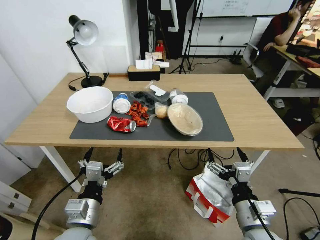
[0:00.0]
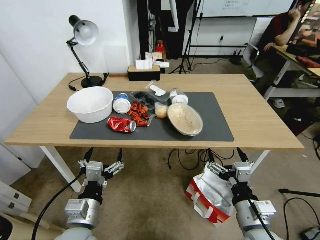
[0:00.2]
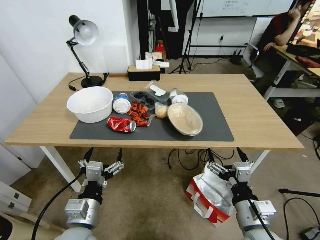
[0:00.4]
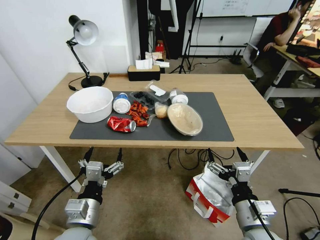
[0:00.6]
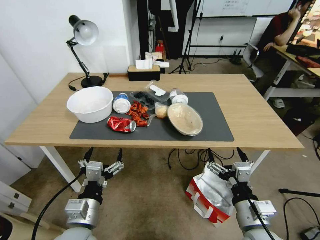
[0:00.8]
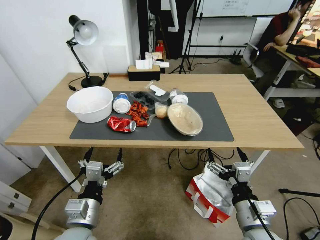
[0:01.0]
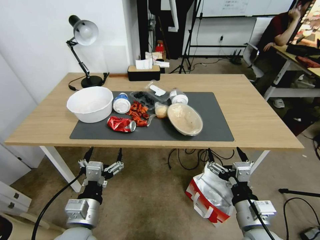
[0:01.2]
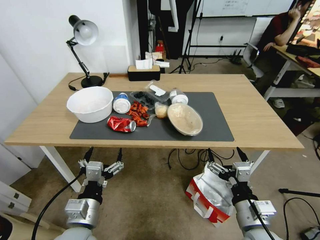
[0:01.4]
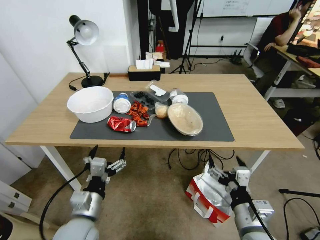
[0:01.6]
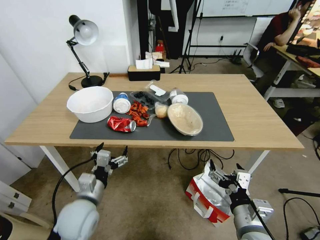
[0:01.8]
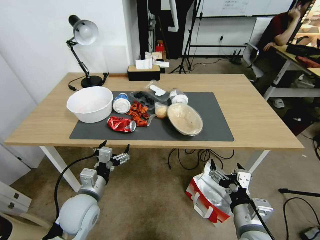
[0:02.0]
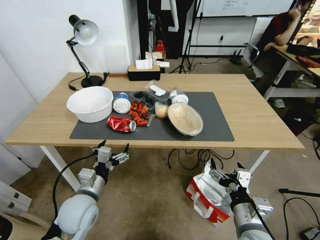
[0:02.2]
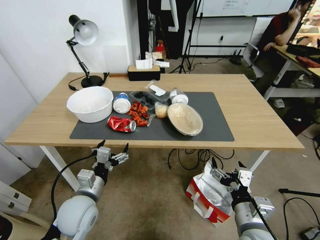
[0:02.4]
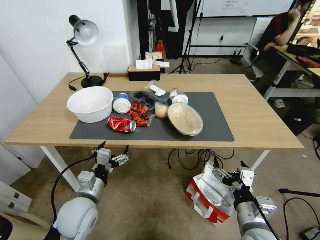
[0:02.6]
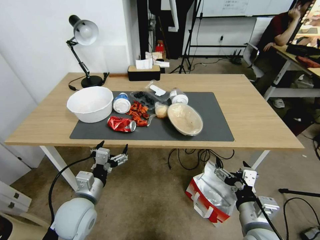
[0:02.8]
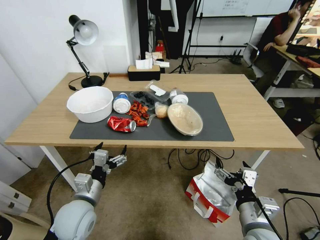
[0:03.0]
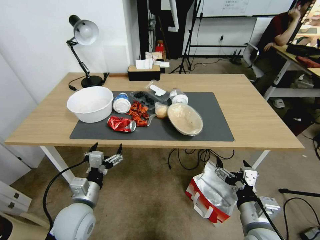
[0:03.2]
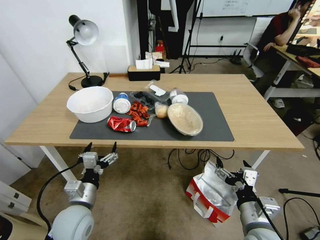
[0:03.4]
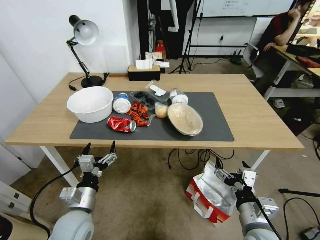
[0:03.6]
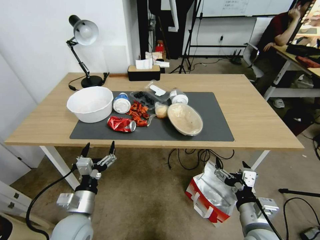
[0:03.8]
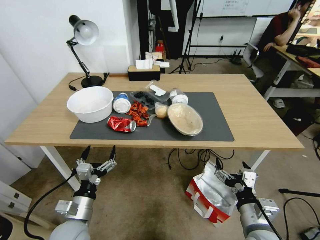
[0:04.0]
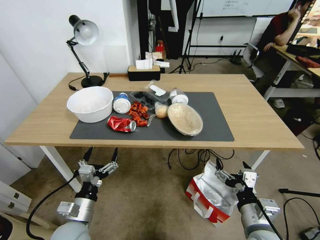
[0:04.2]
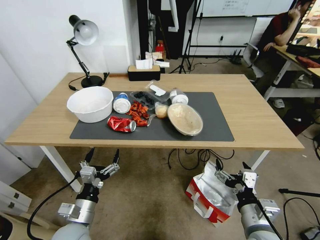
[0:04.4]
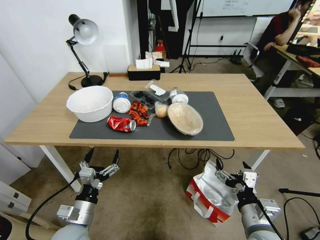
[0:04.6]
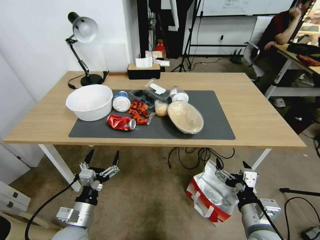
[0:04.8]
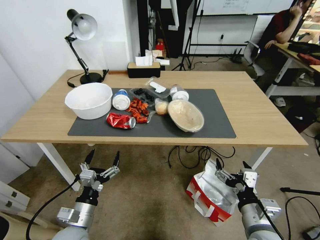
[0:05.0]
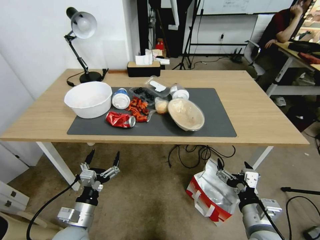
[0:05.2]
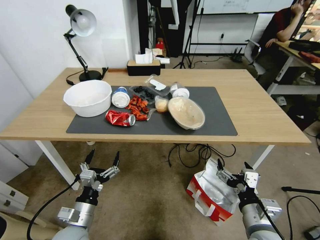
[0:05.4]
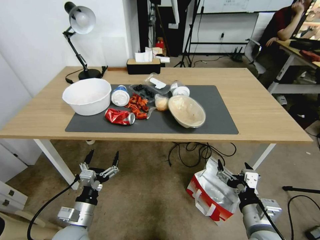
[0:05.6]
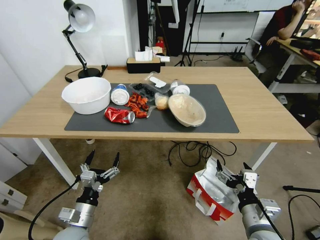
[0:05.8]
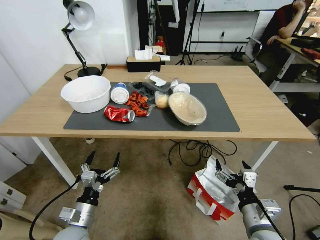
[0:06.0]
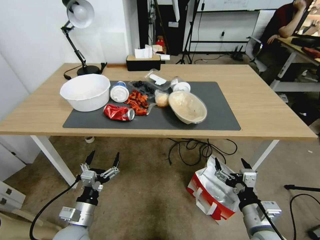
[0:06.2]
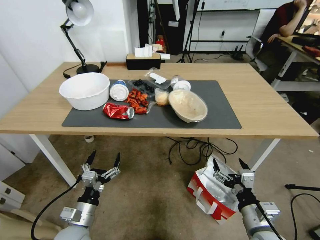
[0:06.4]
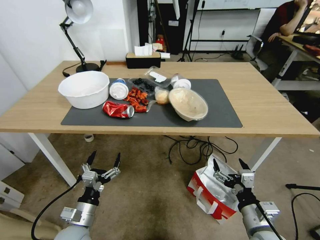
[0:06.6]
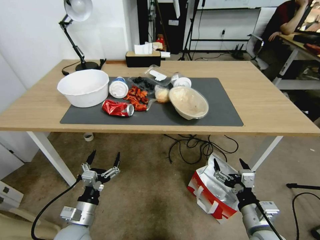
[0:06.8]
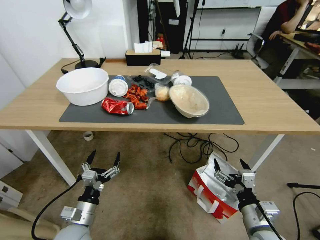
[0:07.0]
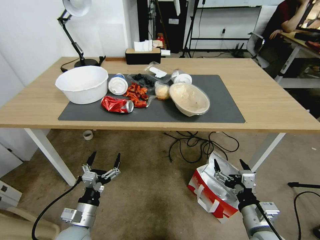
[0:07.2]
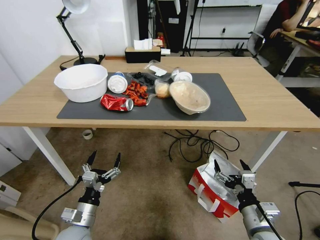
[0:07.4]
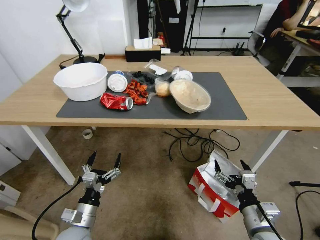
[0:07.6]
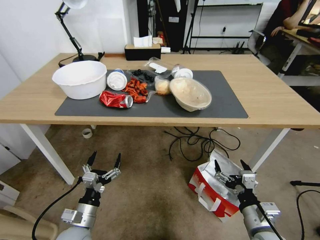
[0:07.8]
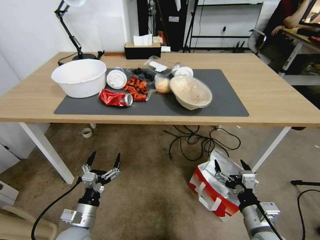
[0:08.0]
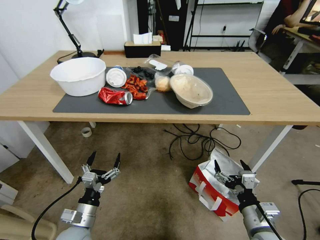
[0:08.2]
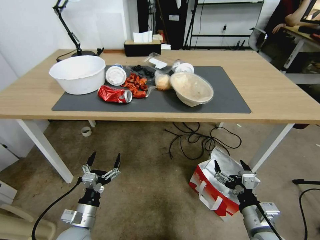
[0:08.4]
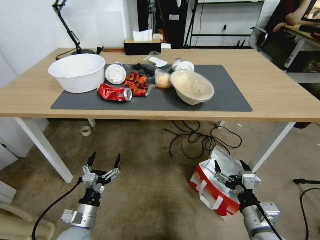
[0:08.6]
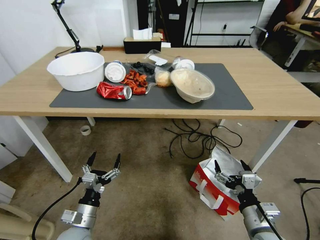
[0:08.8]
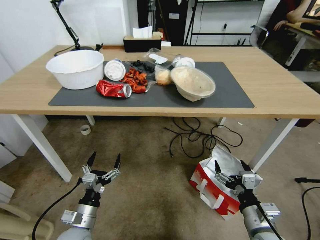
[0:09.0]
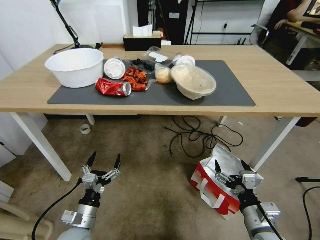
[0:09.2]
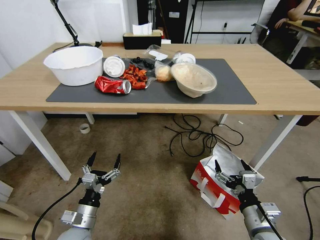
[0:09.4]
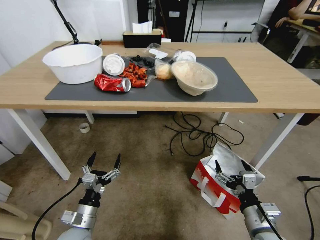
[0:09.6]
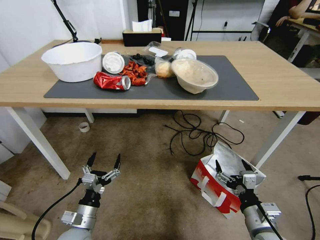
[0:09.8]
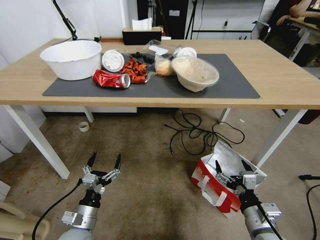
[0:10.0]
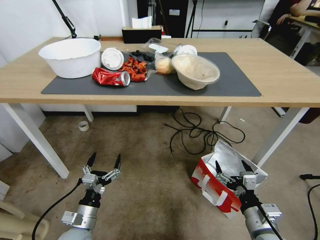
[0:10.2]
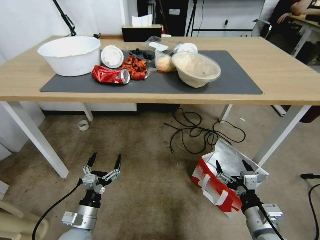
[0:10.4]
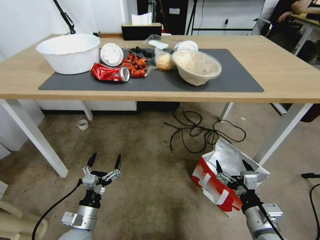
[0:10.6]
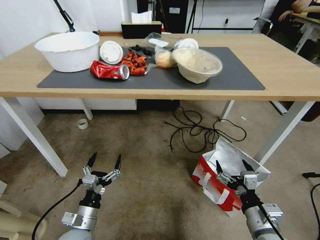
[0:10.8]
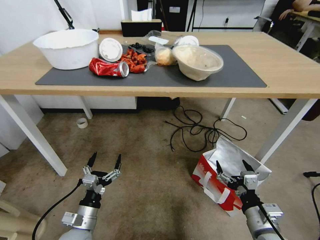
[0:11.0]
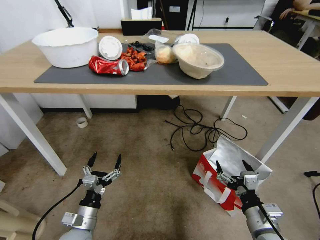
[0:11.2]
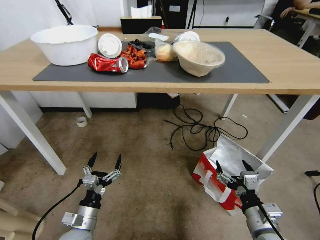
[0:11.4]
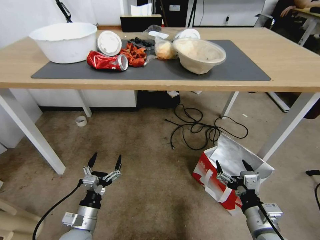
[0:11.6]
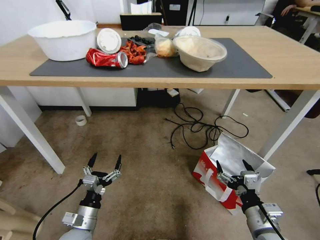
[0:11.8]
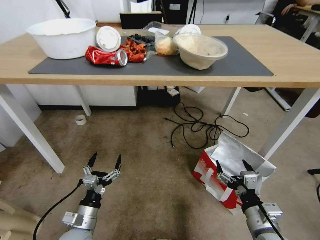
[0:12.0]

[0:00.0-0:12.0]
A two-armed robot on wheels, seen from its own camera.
Task of the whole recording: Pick up the food delivery bag from the floor and place it on the table.
0:01.6 to 0:03.0: The left gripper shifts approximately 5 cm forward.
0:03.0 to 0:04.4: The left gripper moves downward, about 5 cm.

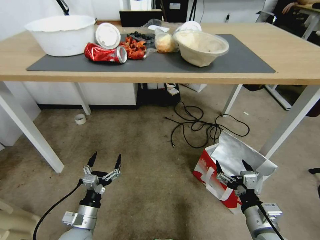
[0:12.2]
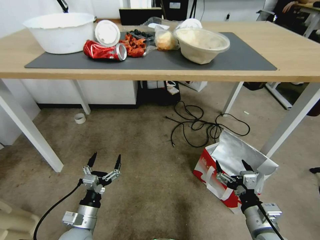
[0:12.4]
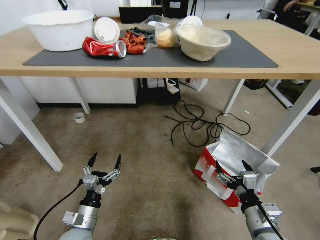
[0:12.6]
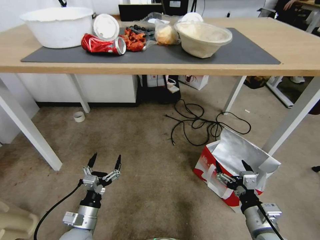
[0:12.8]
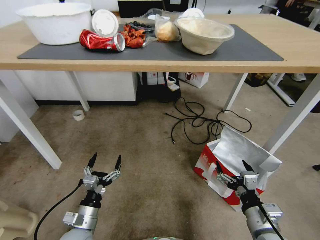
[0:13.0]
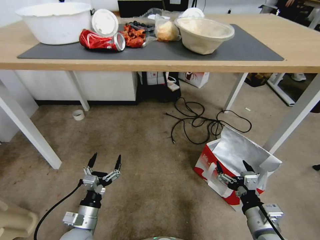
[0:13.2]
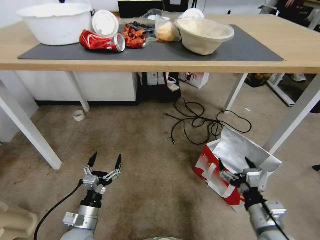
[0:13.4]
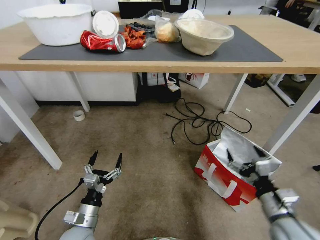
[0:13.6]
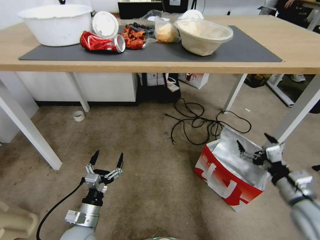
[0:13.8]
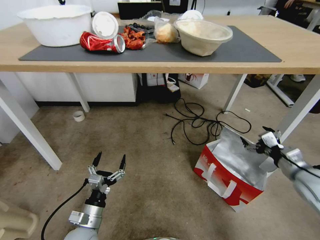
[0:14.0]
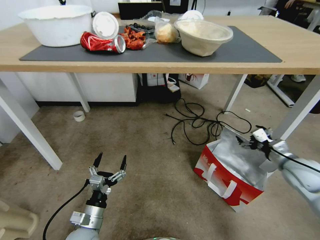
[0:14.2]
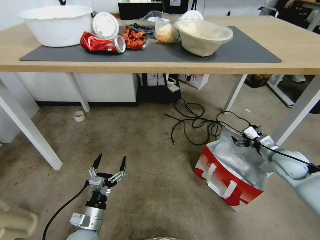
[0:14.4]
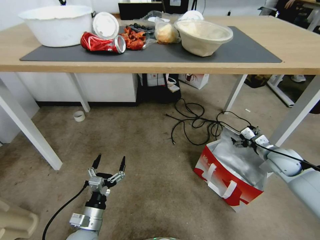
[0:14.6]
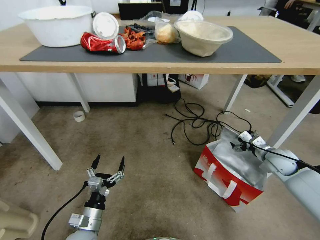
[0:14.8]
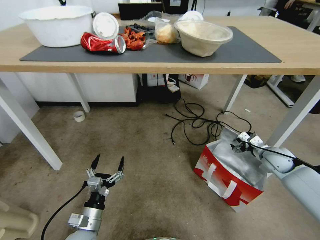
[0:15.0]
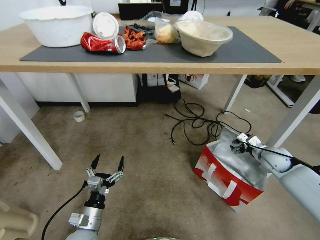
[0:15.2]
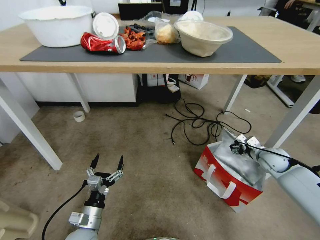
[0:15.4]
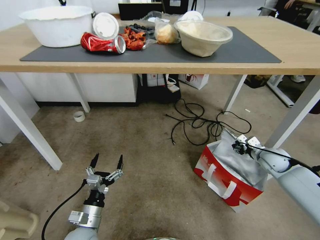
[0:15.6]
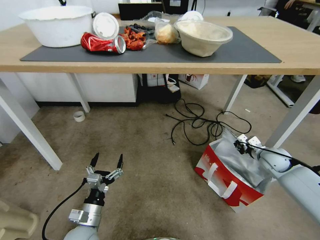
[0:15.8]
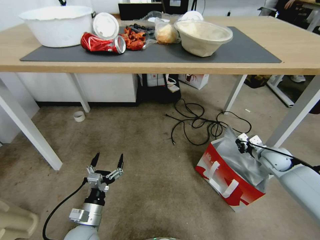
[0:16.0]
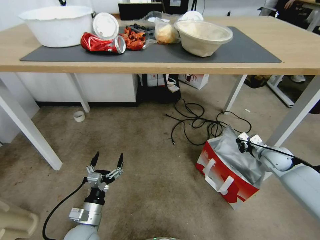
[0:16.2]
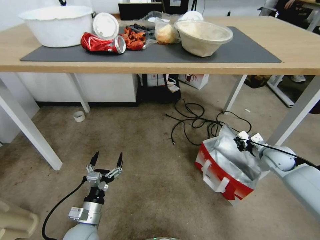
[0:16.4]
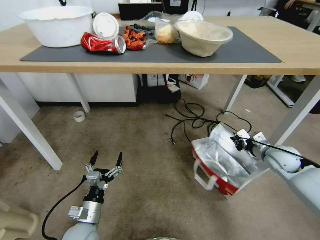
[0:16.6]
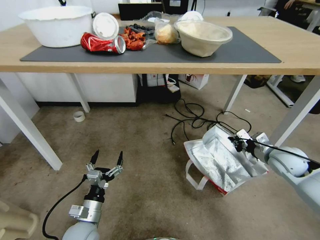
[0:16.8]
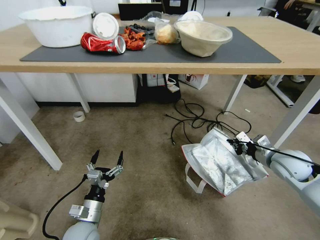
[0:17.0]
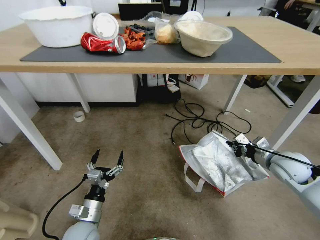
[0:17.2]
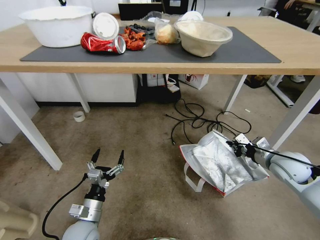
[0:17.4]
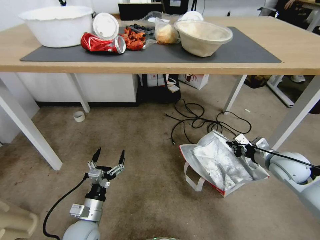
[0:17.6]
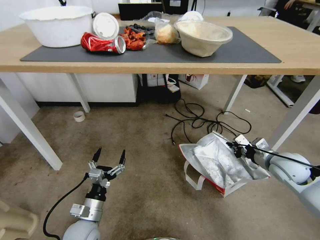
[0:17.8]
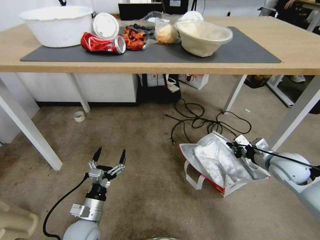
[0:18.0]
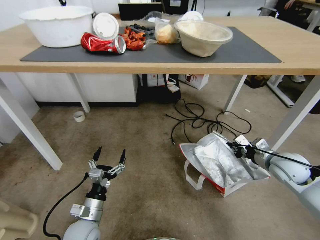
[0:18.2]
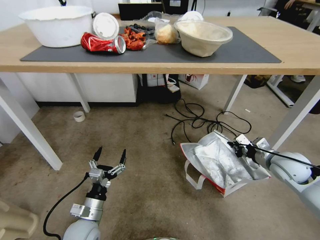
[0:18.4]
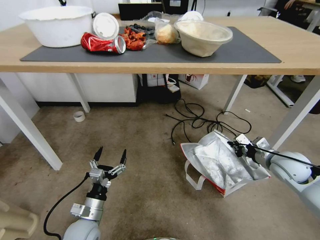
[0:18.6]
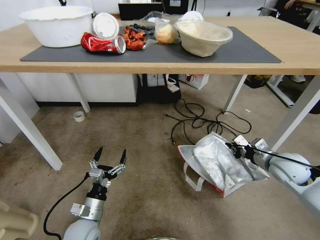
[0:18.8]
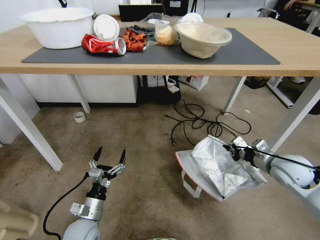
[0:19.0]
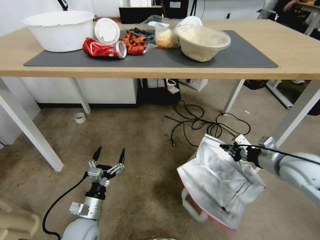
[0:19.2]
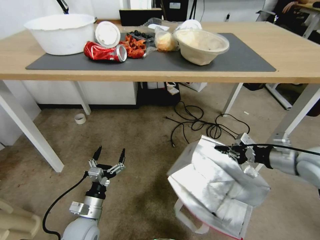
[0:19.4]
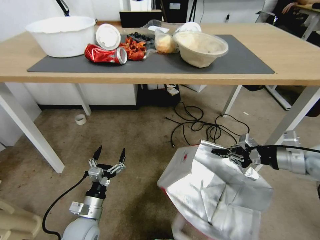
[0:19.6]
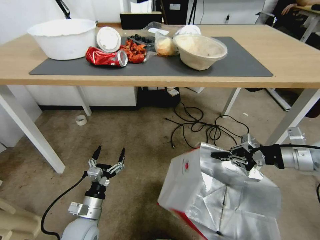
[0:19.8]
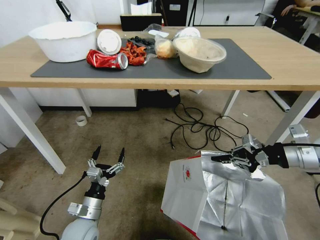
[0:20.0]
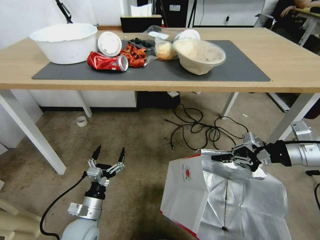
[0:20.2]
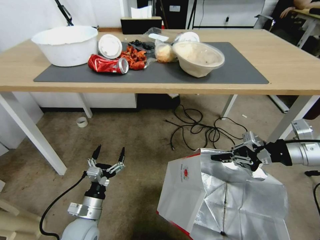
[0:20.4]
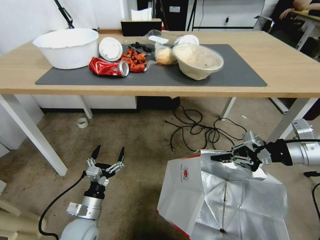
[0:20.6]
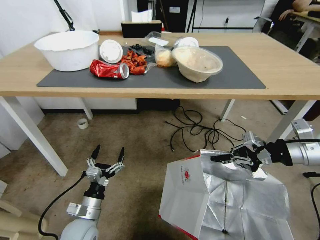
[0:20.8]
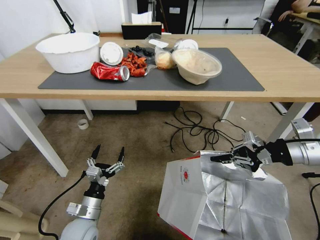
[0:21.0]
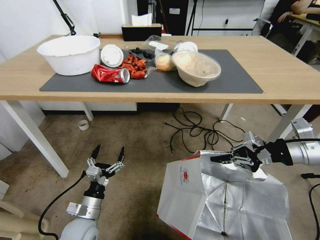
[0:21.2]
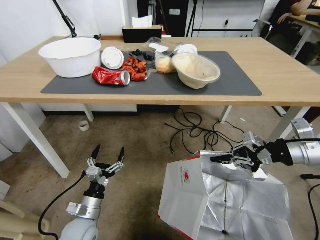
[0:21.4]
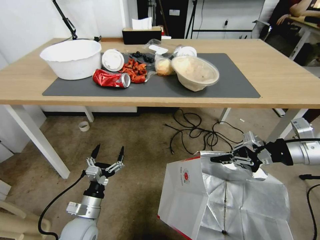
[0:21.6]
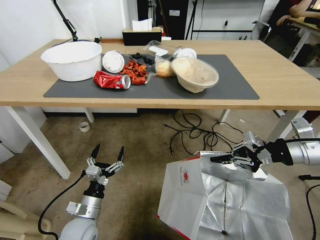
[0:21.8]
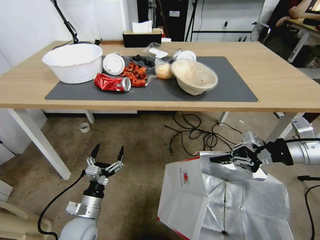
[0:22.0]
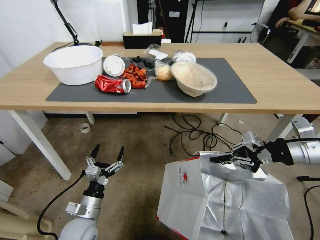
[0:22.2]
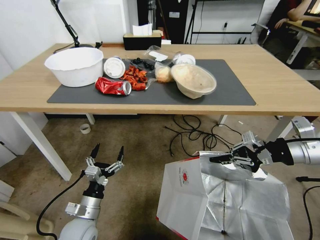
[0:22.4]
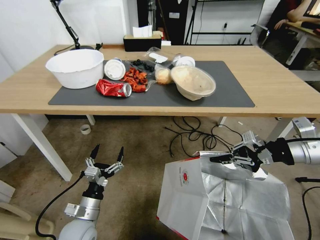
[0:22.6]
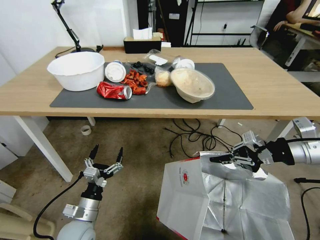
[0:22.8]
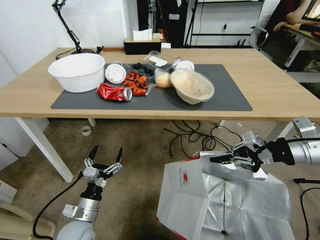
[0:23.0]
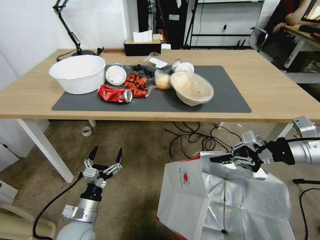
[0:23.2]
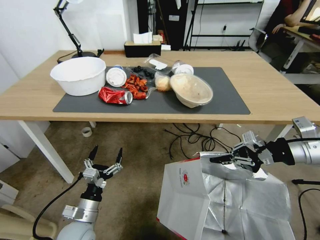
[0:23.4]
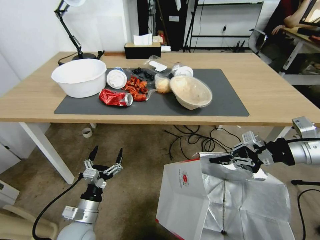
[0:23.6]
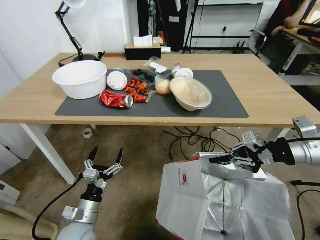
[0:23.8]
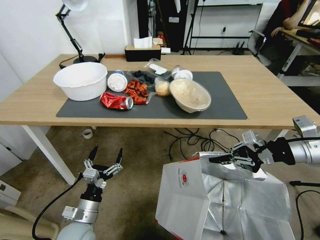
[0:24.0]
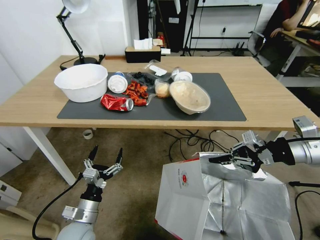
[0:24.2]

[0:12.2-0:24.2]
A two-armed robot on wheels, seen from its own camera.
Task of the whole recording: Pick up the food delivery bag from the floor and place it on the table.
0:12.2 to 0:13.8: The right gripper shifts some 15 cm to the right, upward and forward.
0:13.8 to 0:15.2: The right gripper is displaced forward and downward by approximately 20 cm.
0:15.2 to 0:16.6: The right gripper closes up.
0:16.6 to 0:18.2: The right gripper moves some 5 cm.
0:18.2 to 0:19.8: The right gripper heads upward, covering about 15 cm.
